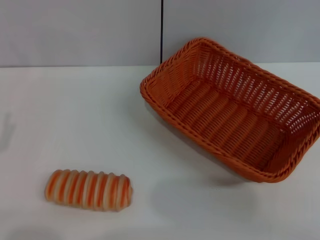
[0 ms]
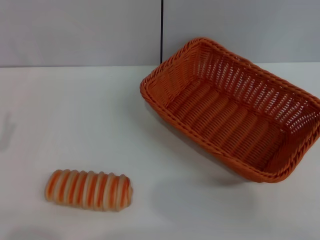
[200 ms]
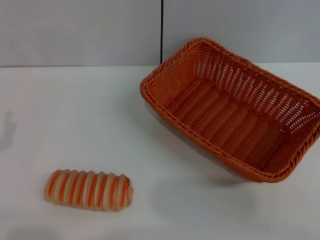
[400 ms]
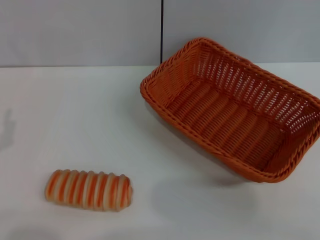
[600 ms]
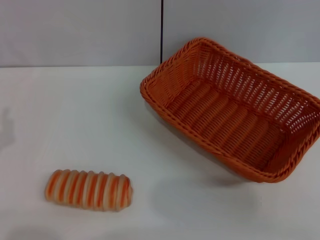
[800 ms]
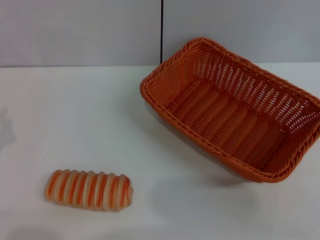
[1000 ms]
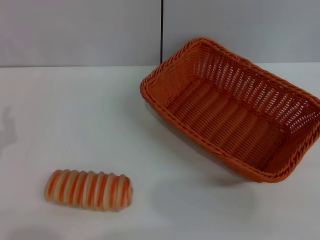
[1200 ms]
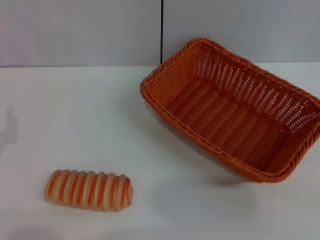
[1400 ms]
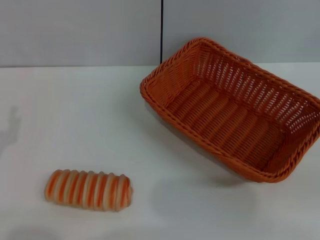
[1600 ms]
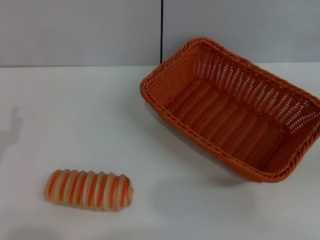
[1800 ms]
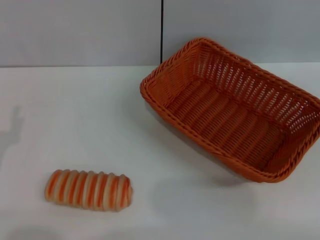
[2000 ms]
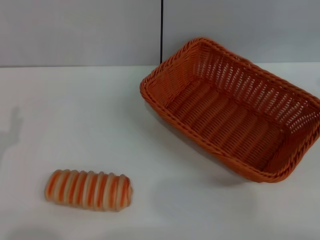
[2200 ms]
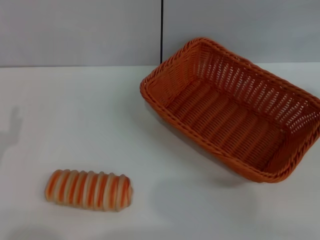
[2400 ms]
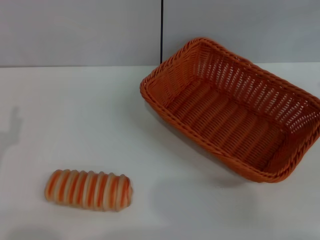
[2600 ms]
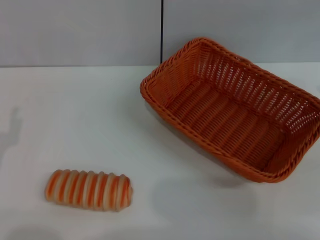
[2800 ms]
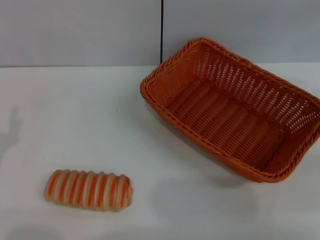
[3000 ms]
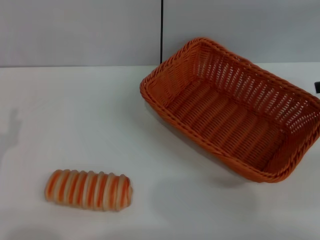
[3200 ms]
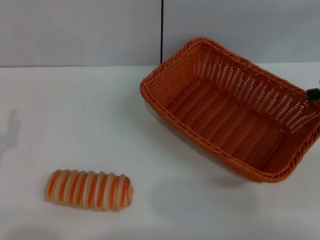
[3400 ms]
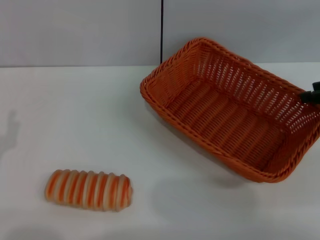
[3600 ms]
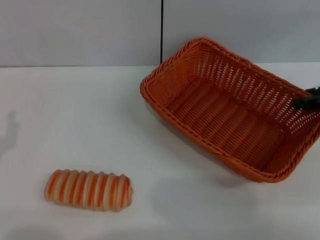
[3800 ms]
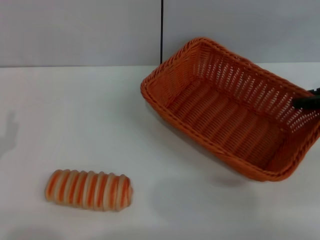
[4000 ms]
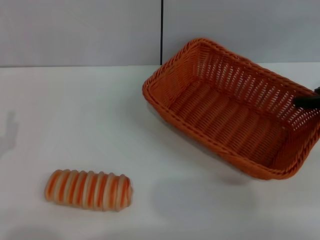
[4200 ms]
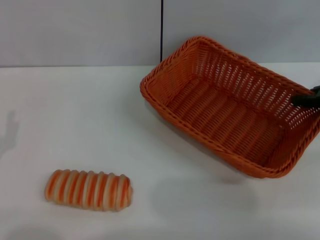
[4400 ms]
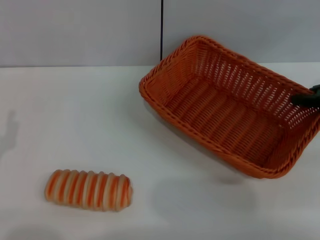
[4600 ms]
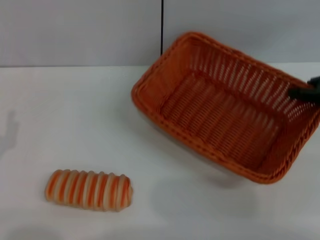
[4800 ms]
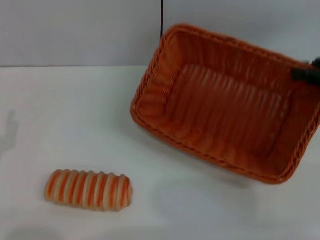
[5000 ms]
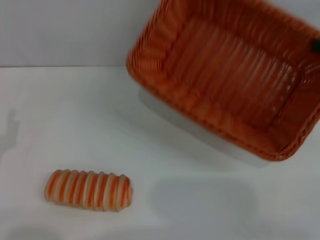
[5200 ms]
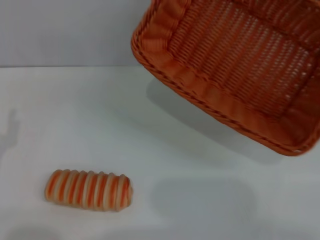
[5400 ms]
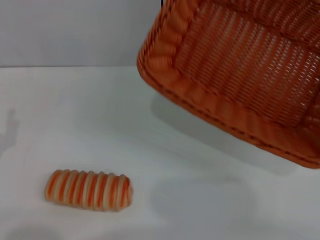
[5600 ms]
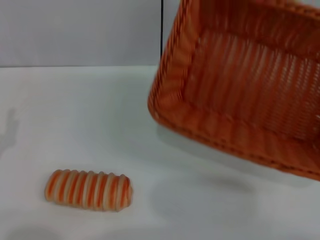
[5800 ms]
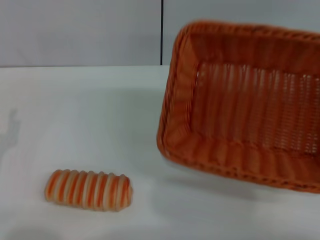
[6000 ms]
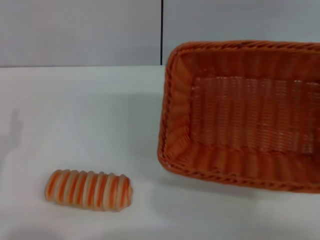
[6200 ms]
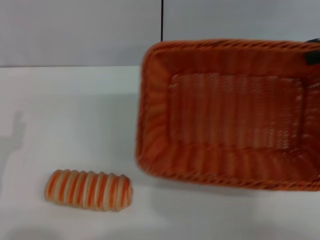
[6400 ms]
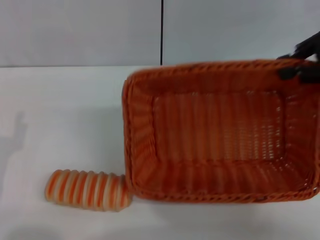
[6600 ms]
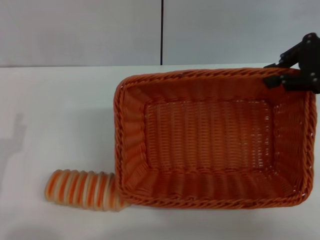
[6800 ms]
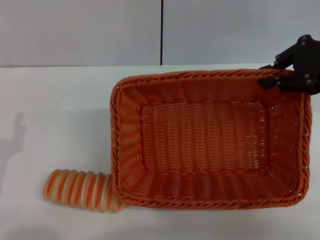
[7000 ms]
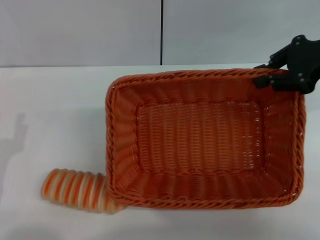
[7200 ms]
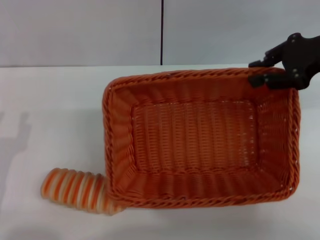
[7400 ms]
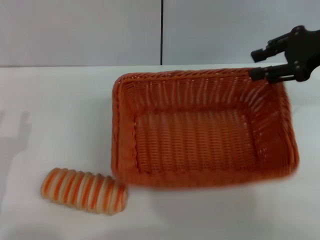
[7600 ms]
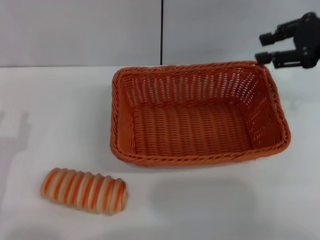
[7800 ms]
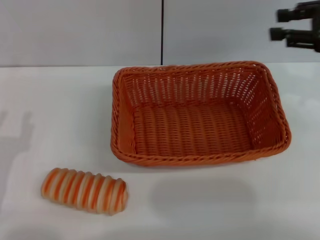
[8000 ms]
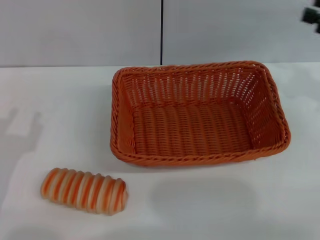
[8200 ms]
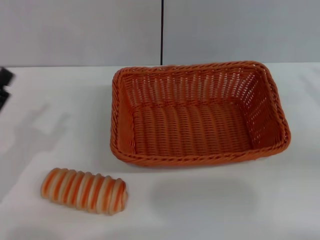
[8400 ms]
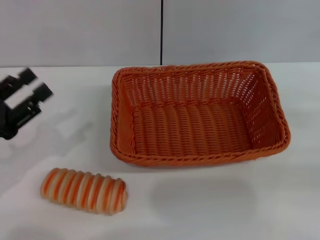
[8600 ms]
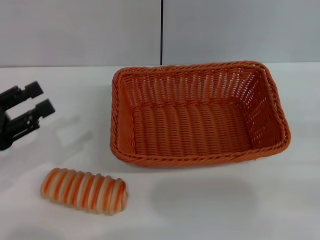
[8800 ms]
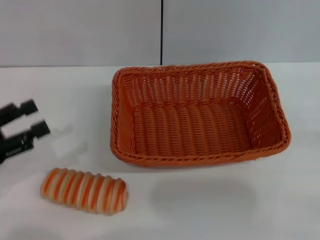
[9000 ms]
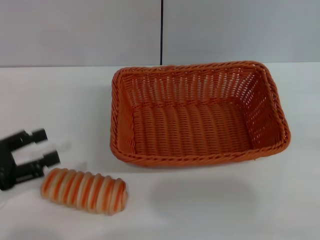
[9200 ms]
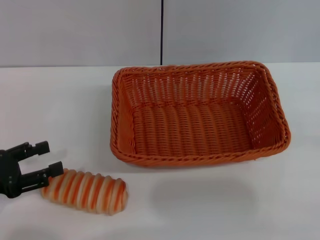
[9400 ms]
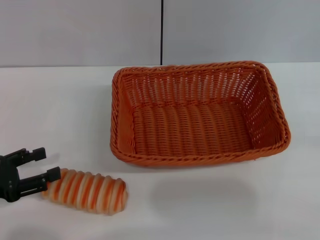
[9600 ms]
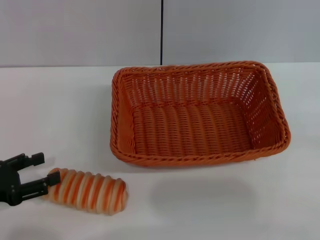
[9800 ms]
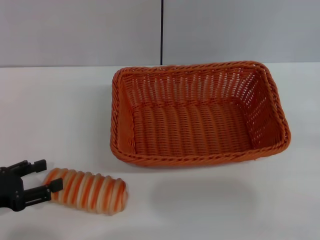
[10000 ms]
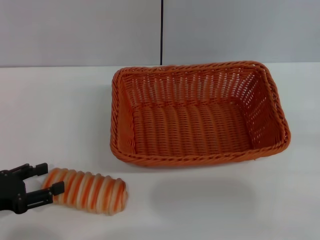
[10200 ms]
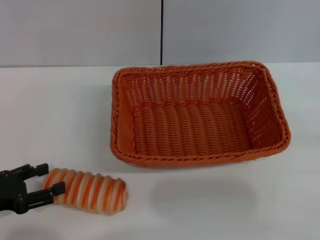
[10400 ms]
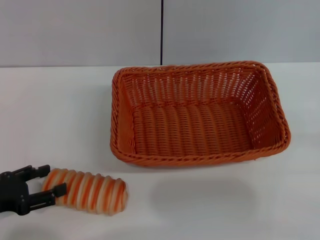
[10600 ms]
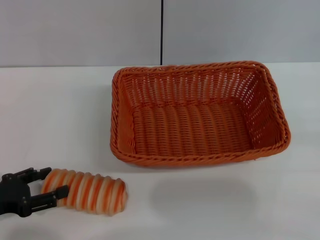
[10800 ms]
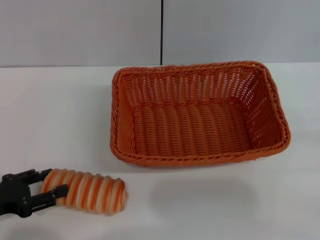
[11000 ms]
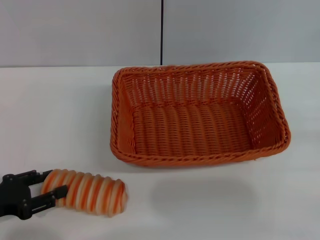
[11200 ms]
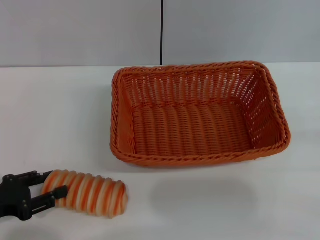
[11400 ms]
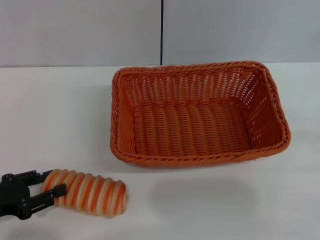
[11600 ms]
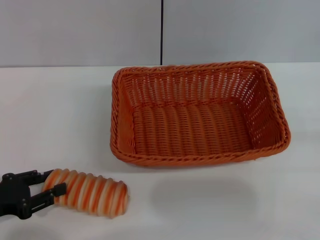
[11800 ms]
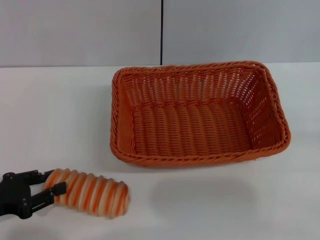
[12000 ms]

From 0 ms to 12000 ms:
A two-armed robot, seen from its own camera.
Step, from 0 ms to 5000 ms: Pick up the light basket with the right gripper.
Step, from 5200 ms to 7800 ms: Place the light basket in the center of view with the right gripper.
From 3000 ms to 4400 ms: The right gripper is displaced downward by some 5 cm, and closes up.
From 4400 ms to 6000 ms: The right gripper travels upward by some 10 cm.
From 6000 ms to 7600 ms: The right gripper is displaced to the left by some 10 cm.
From 7600 ms to 9000 ms: The right gripper shifts roughly 30 cm backward, to the right and downward. The left gripper heads upward, covering about 5 cm.
From 9000 ms to 10400 ms: The left gripper heads downward, covering about 5 cm.
From 10400 ms to 12000 ms: The left gripper closes.

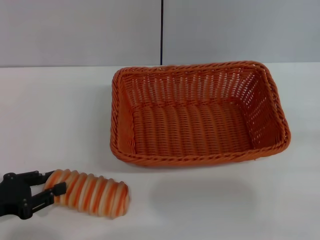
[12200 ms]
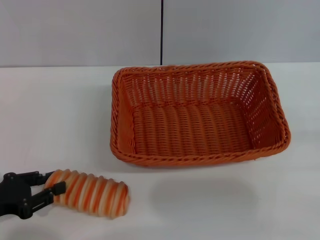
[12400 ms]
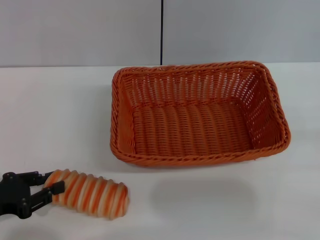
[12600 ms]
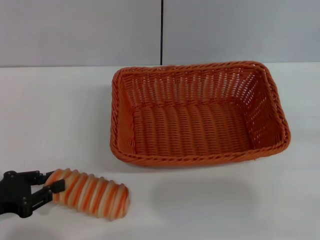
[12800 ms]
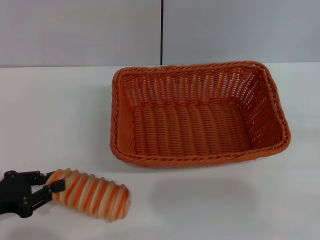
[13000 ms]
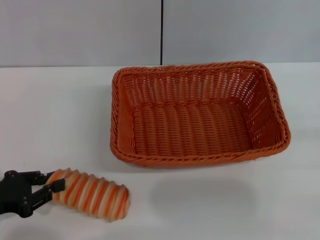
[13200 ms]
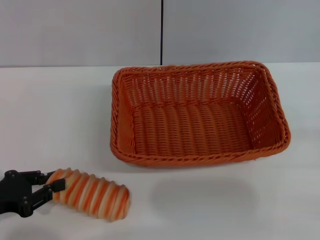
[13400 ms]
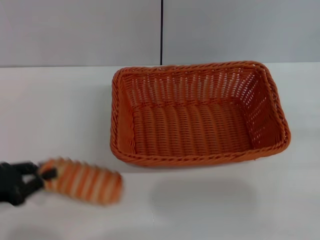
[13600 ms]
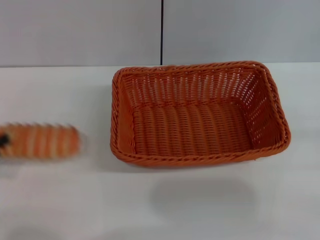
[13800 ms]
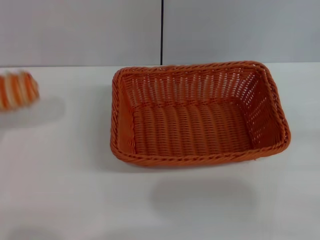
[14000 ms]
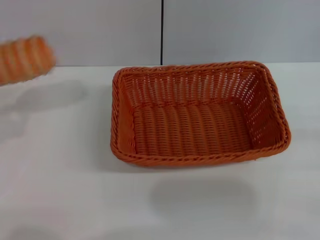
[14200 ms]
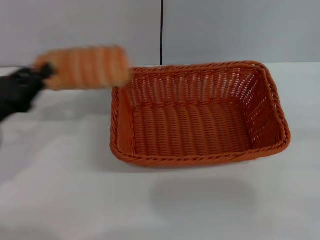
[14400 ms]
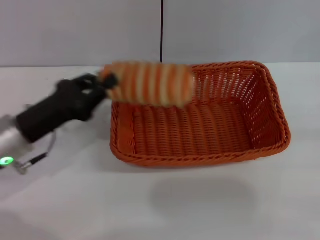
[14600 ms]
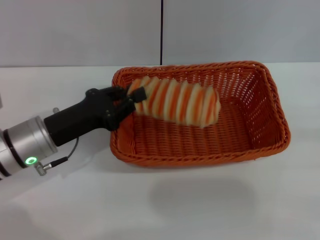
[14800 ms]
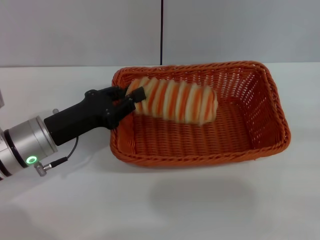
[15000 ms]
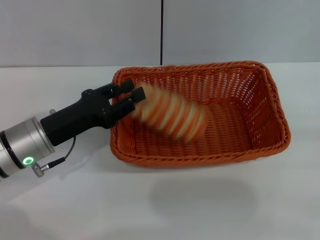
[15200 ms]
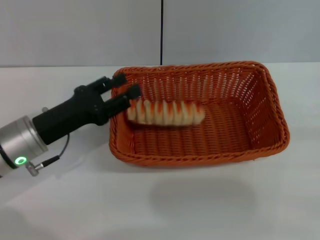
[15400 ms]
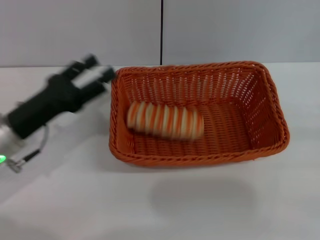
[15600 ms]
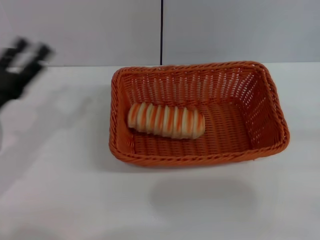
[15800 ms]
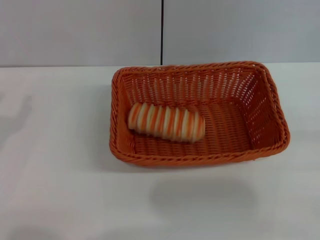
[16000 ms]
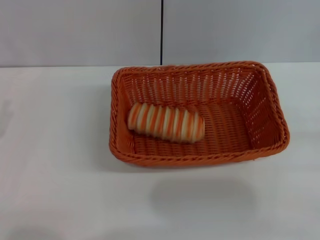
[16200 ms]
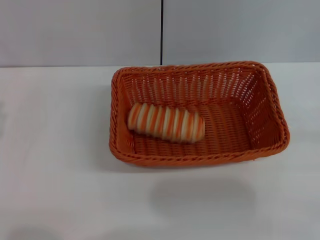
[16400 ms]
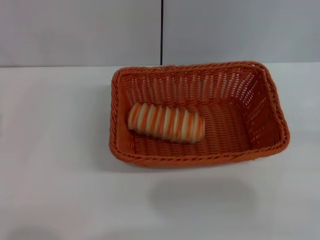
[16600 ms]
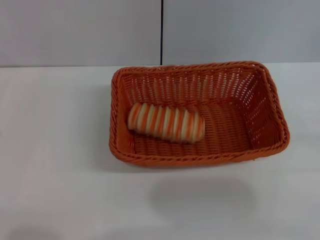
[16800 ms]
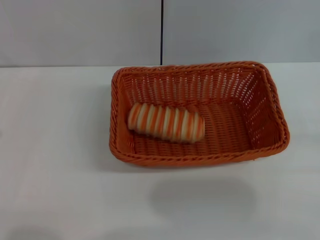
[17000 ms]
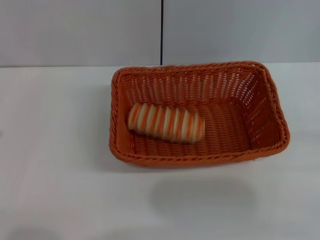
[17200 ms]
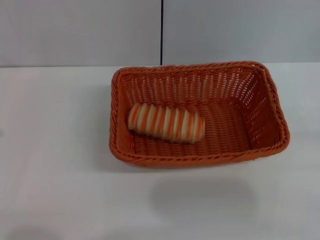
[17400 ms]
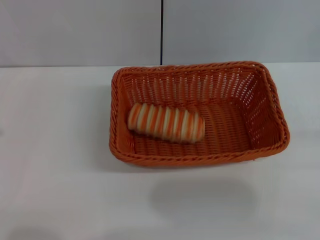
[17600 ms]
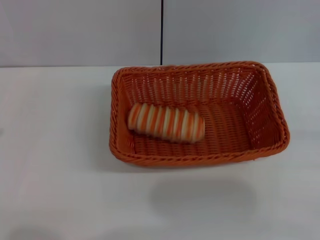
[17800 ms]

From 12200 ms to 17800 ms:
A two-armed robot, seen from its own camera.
Step, from 14000 ms to 15600 ms: Place the long bread into the light basket with the left gripper.
From 12200 ms to 13600 ms: Both grippers stay about where they are.
From 13600 ms to 15000 ms: The left gripper moves to the right and forward, about 15 cm.
From 15000 ms to 16400 ms: The left gripper is displaced to the left and backward by approximately 15 cm, and opens its fingers.

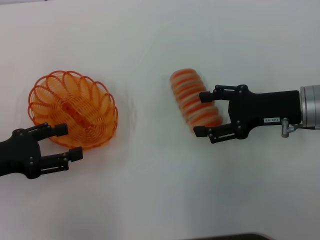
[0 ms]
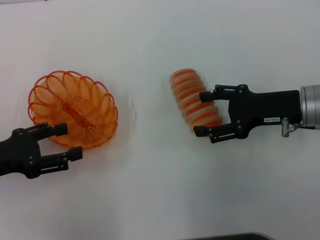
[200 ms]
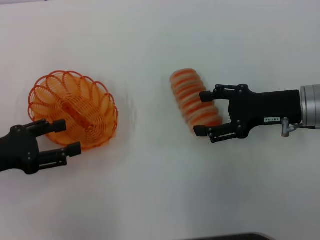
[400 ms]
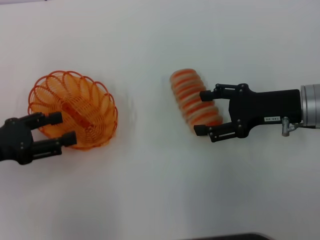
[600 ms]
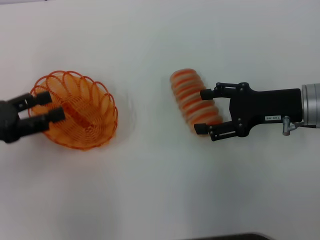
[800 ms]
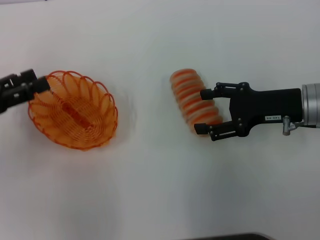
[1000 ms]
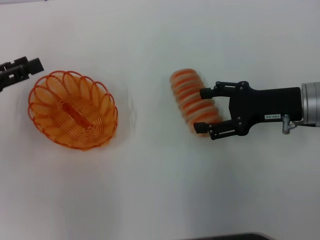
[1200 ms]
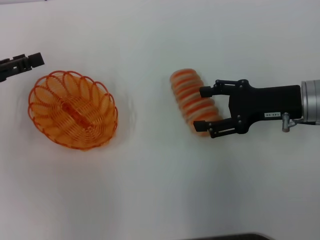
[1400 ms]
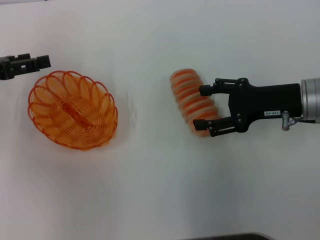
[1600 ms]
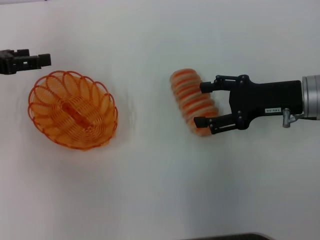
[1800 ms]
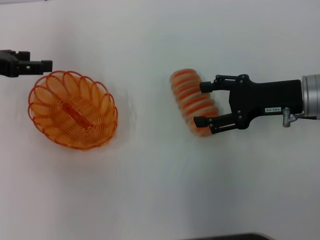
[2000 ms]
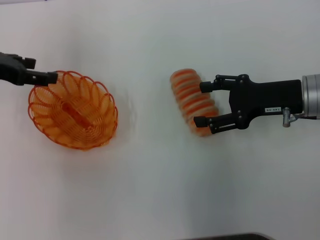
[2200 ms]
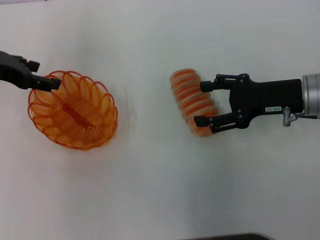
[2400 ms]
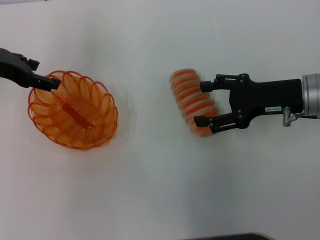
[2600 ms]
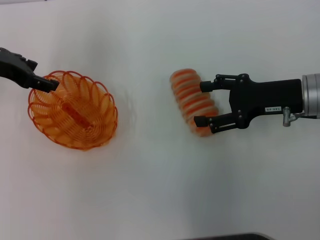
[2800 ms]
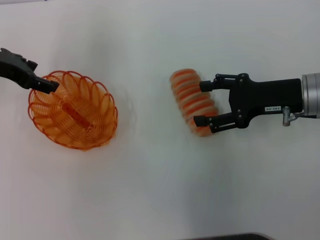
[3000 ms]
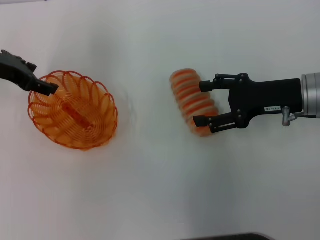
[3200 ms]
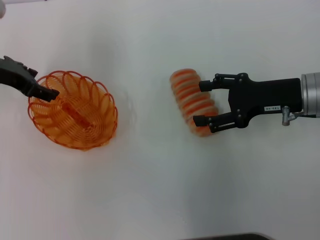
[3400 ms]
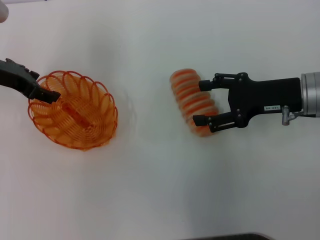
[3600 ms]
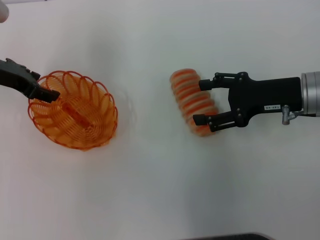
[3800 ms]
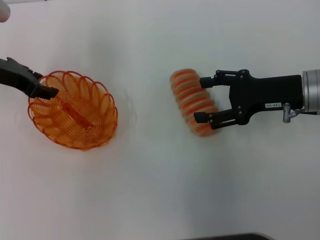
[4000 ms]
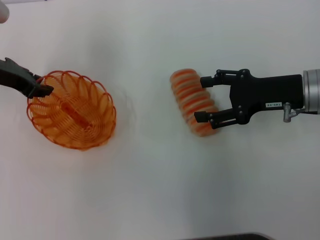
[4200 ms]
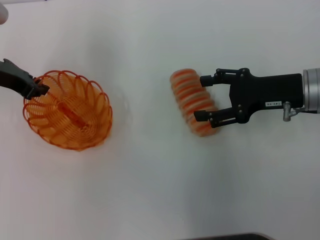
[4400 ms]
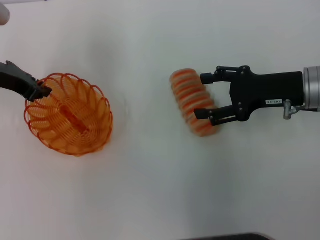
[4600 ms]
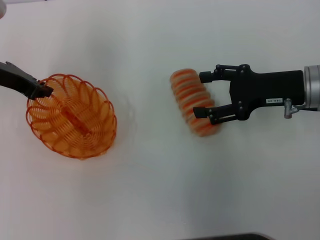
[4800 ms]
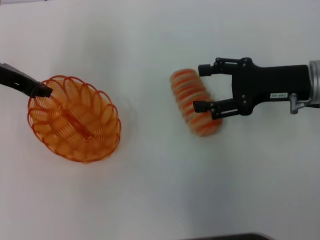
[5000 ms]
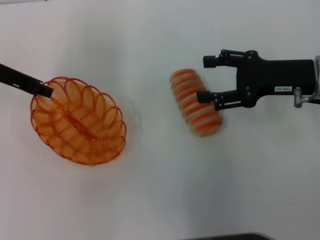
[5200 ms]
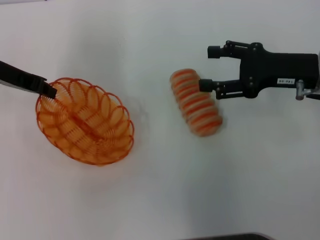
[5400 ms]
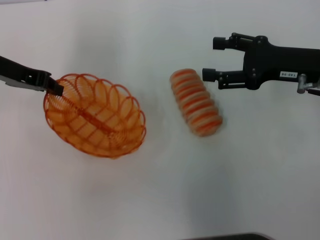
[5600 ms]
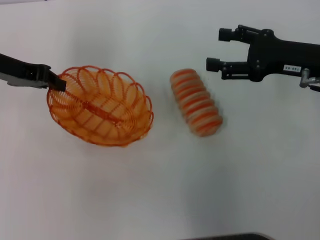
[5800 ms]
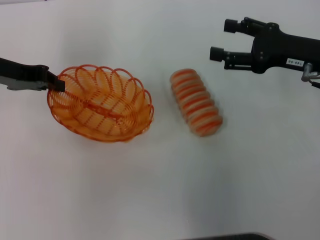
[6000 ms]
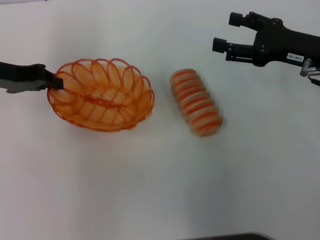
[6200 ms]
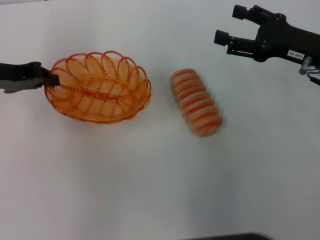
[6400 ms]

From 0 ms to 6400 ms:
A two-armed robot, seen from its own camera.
Step, from 0 ms to 5600 ms: Pick up the basket with the left gripper.
From 0 ms to 1600 ms: The left gripper goes some 10 cm forward and upward.
From 1600 ms to 3200 ms: The left gripper moves to the right and forward, some 10 cm.
From 3200 ms to 4800 ms: The left gripper closes up.
